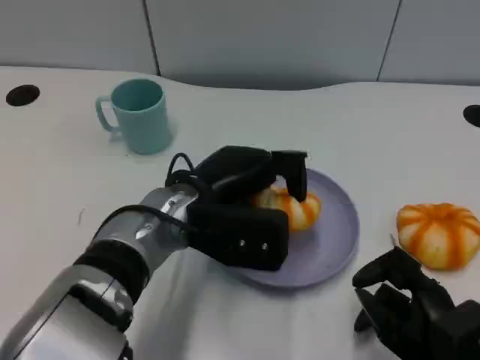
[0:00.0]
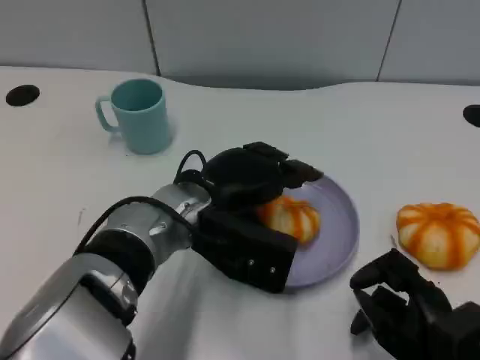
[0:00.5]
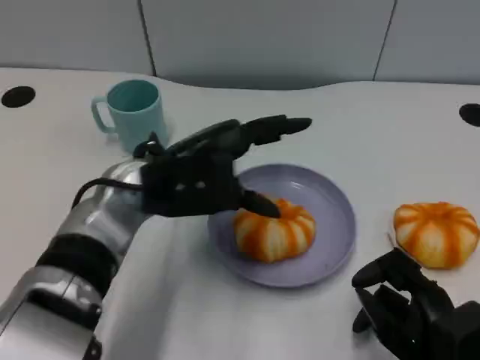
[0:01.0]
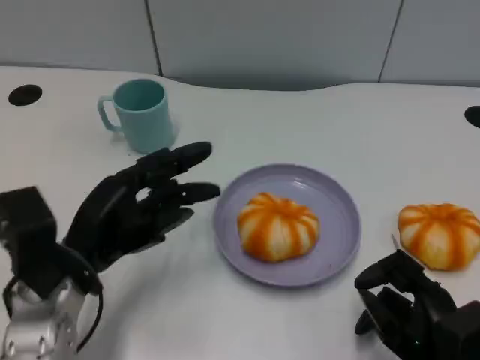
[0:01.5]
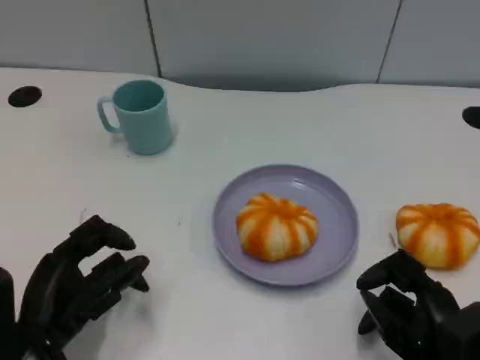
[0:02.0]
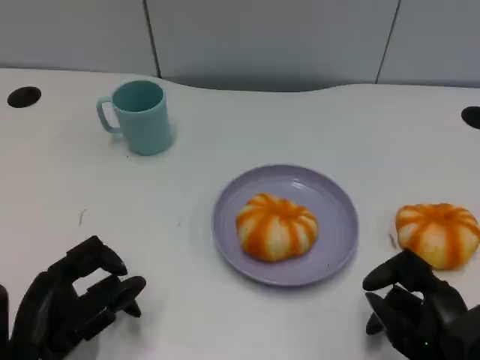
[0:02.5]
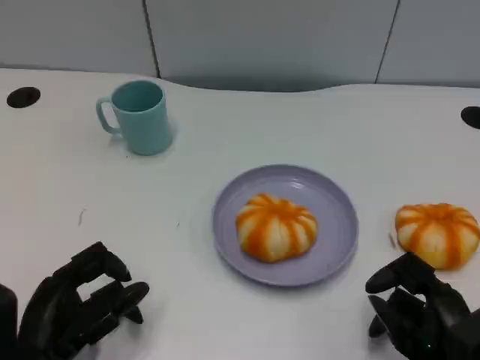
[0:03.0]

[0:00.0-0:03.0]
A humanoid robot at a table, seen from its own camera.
Task of the whole recording: Grasp the bread from the table and place it into the plate.
0:00.0 to 0:01.5: The left hand is displaced to the left and backward by some 15 cm.
0:01.5 to 0:03.0: The left hand heads backward, covering about 5 cm.

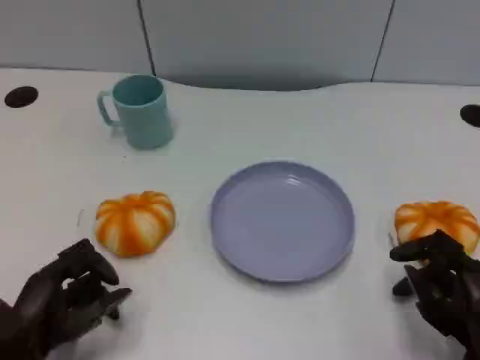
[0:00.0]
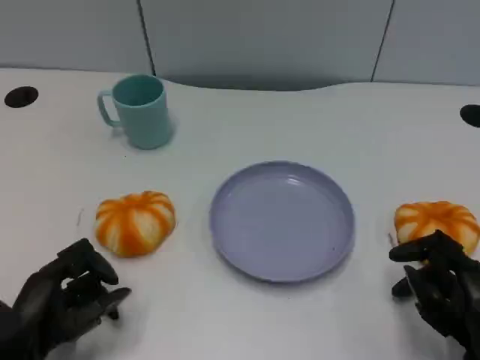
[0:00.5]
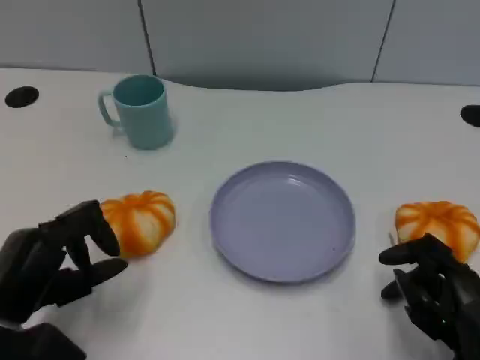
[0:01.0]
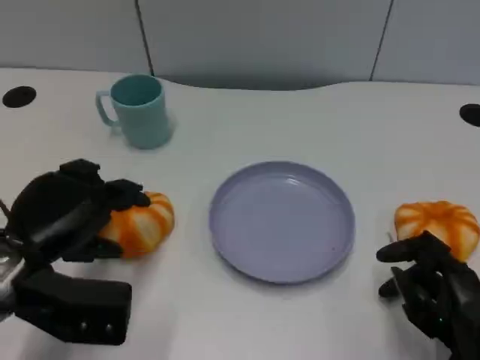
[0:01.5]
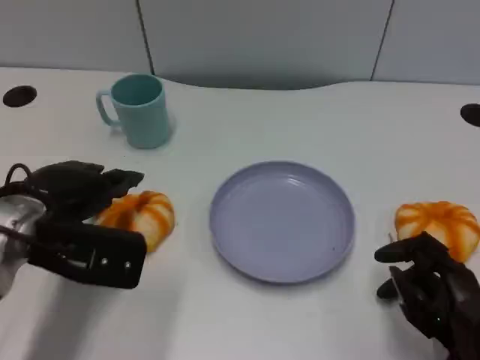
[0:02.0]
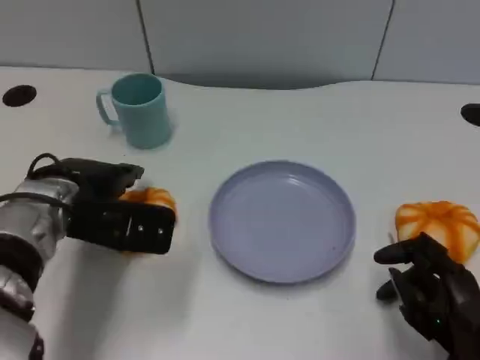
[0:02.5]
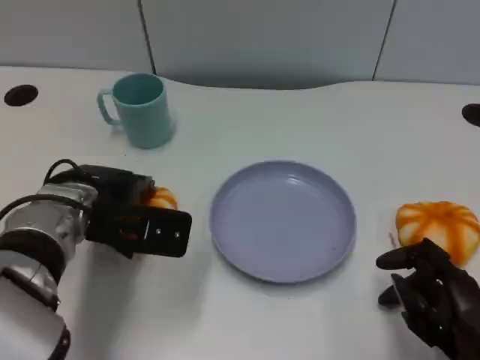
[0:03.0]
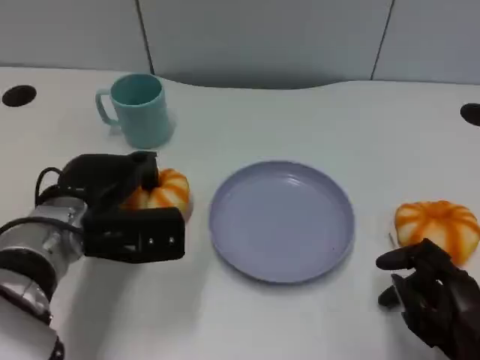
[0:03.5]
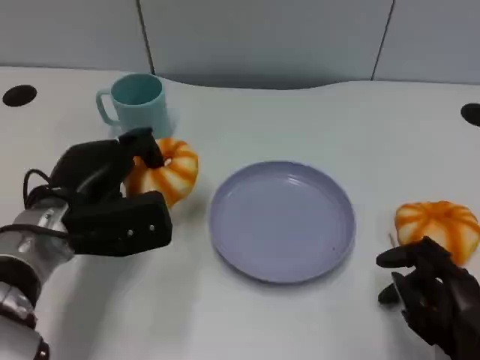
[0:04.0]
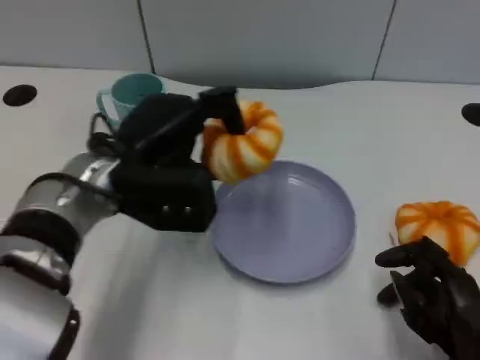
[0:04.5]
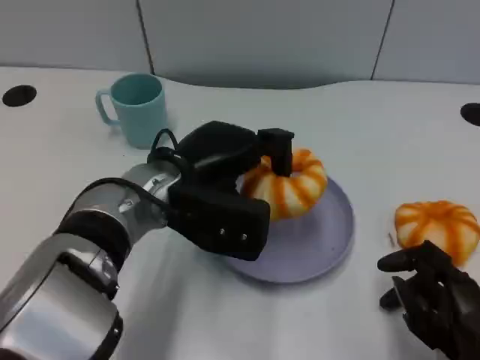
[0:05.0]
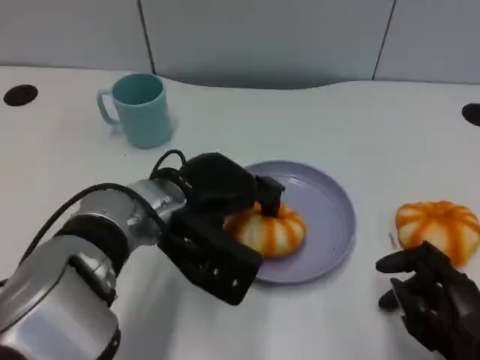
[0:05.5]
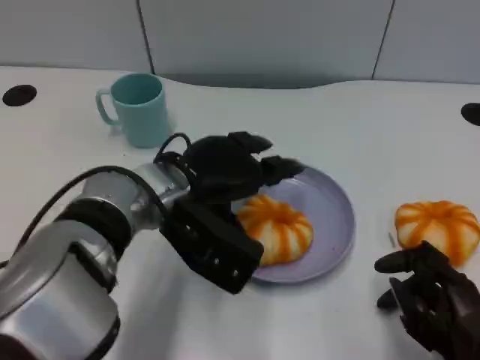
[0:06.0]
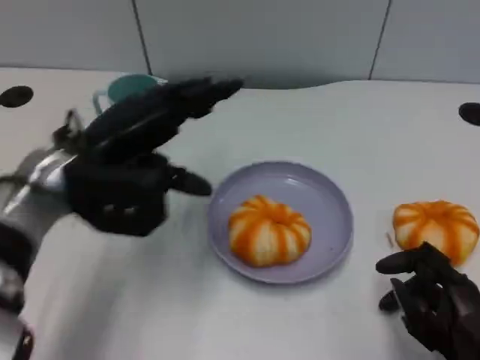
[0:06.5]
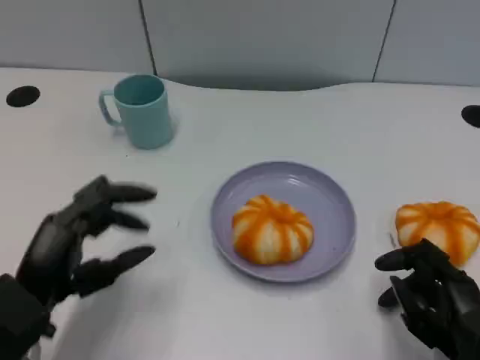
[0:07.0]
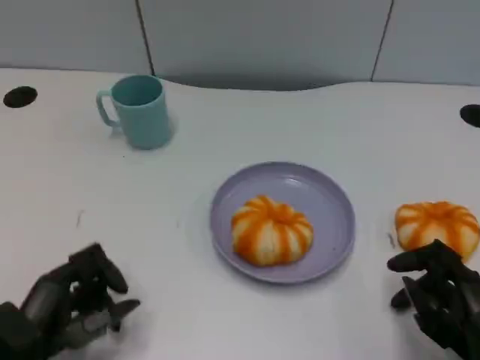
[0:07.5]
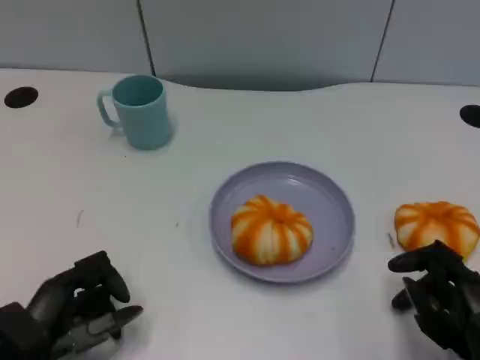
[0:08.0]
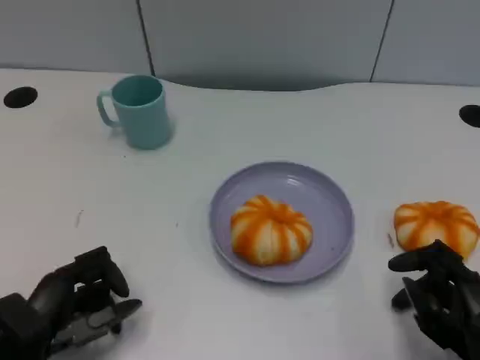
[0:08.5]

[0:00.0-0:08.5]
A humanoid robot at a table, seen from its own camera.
Task of the whole recording: Grasp the bread from the table and place it into the plate.
0:00.0 to 0:02.0: The left hand shifts approximately 15 cm upward and forward.
0:04.0 to 0:06.5: The left hand reaches some 10 cm to the right, then returns.
0:06.5 to 0:08.5: The left hand moves downward, backward and to the left, some 20 cm.

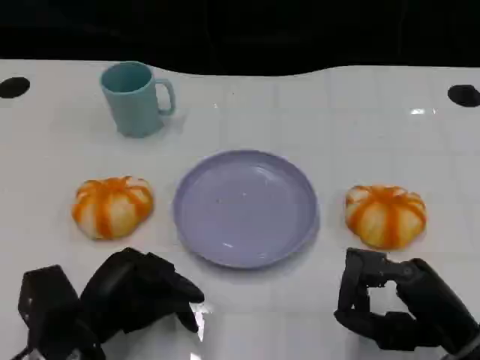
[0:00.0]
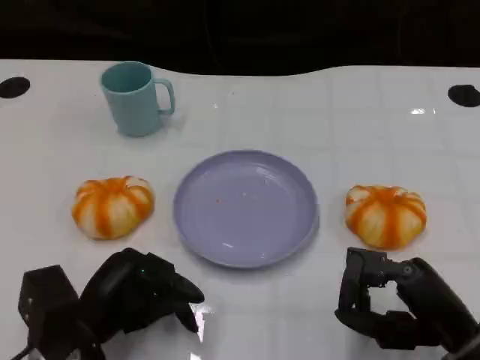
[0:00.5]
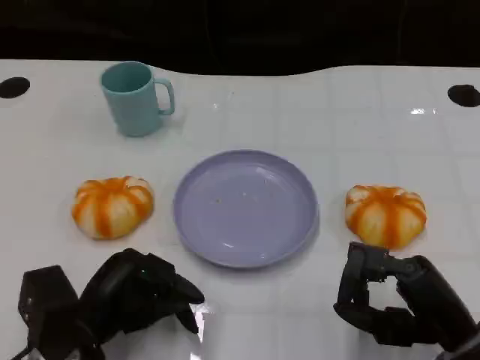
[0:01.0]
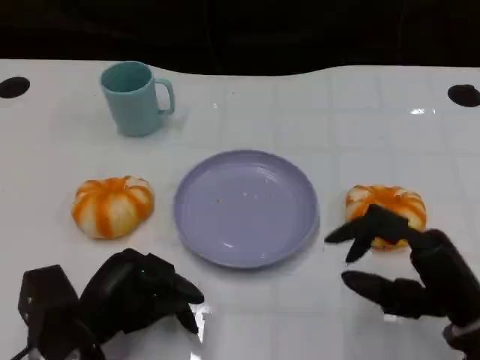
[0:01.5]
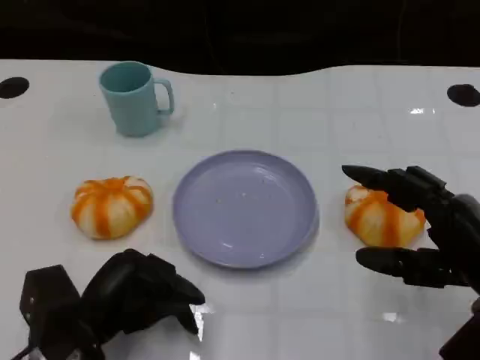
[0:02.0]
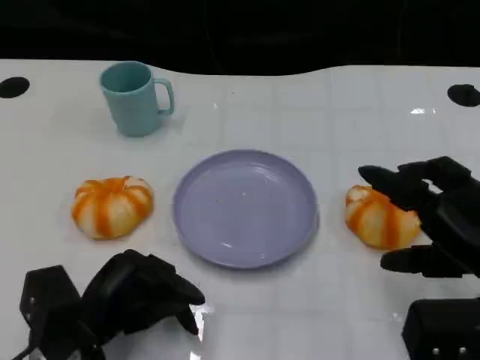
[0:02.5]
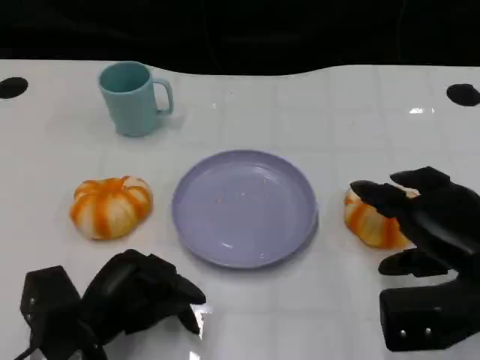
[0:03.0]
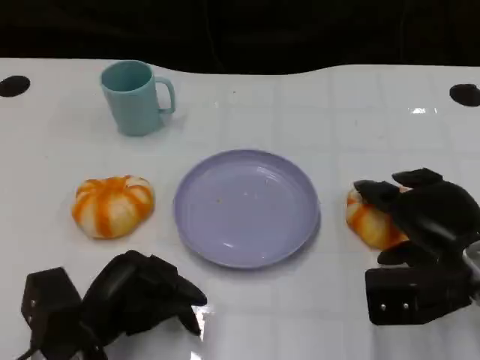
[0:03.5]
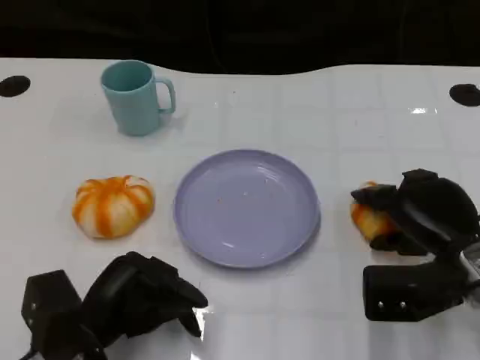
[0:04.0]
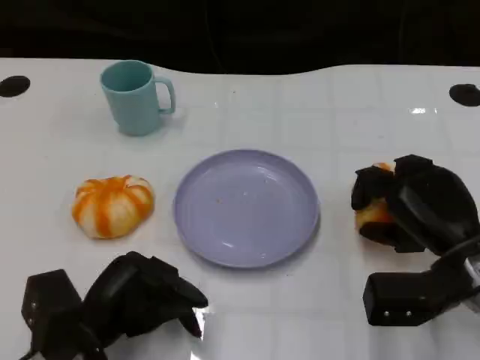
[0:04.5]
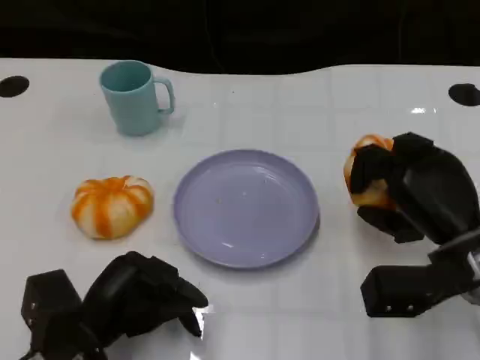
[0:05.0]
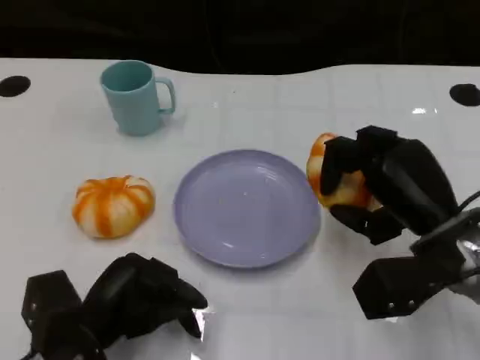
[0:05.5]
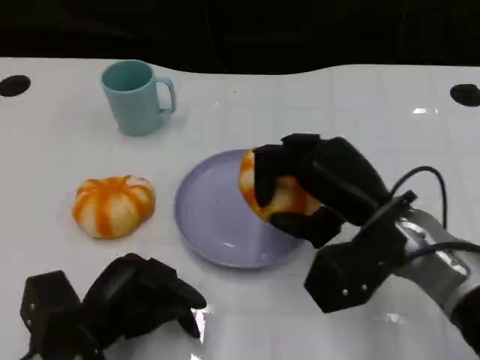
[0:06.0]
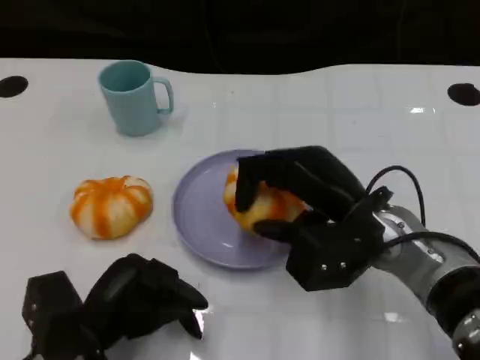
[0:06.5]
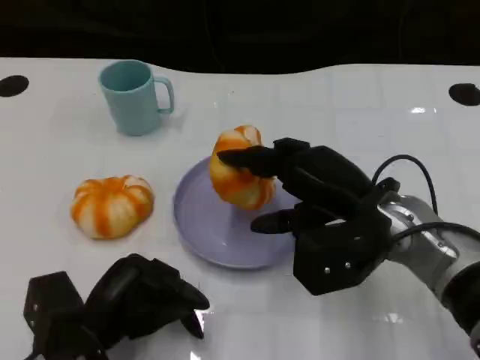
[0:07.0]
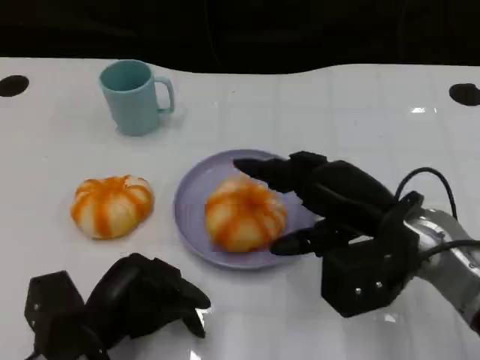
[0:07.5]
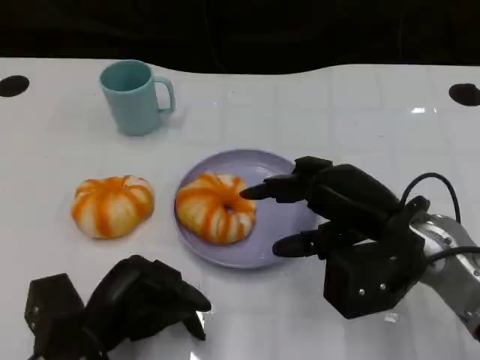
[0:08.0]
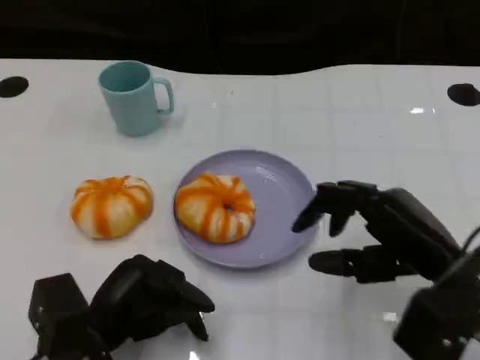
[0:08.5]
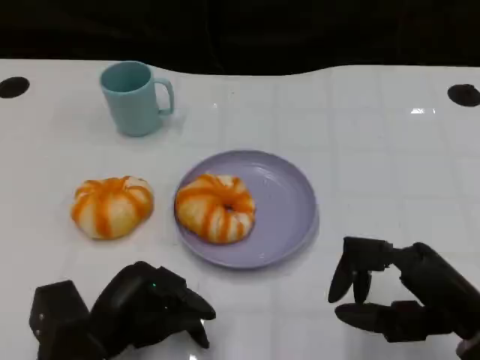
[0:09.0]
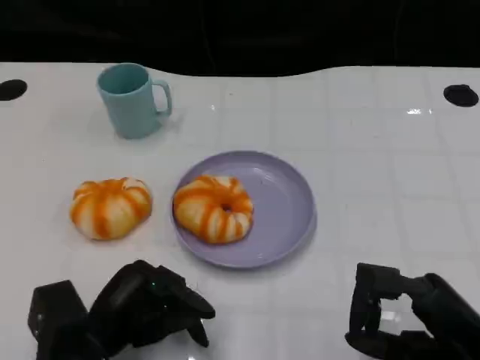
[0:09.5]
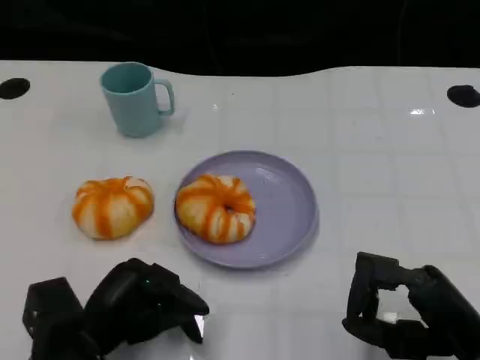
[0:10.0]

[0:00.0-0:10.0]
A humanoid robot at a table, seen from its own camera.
Task of the whole recording: Grasp the bread from the table and place it into the plate.
0:00.0 to 0:02.0: The right hand is displaced upward by some 5 cm.
0:02.0 to 0:04.0: The right hand travels forward by approximately 5 cm.
0:04.0 to 0:06.0: The right hand heads to the left, covering roughly 10 cm.
0:06.0 to 0:08.0: The hands move only a little.
0:08.0 to 0:10.0: The right hand is displaced backward, to the right and downward by about 15 cm.

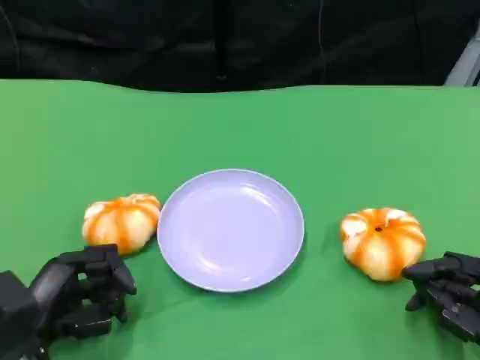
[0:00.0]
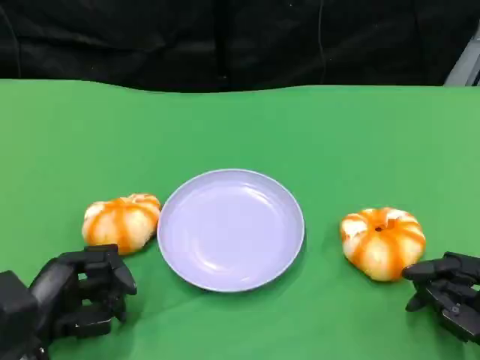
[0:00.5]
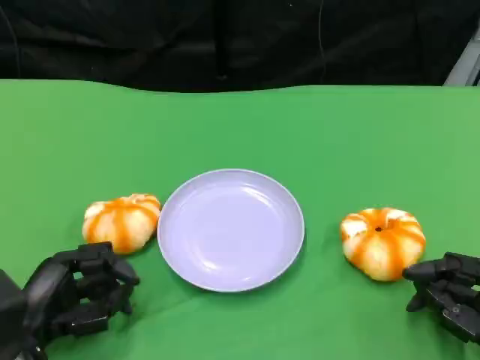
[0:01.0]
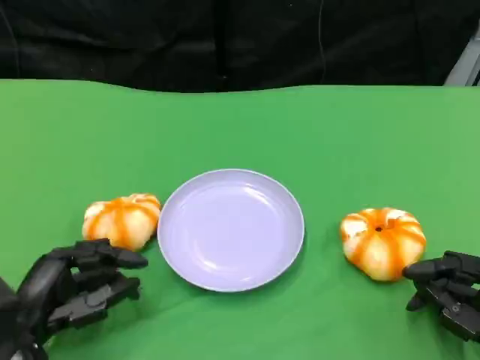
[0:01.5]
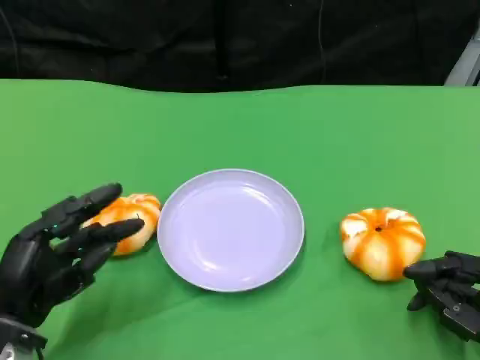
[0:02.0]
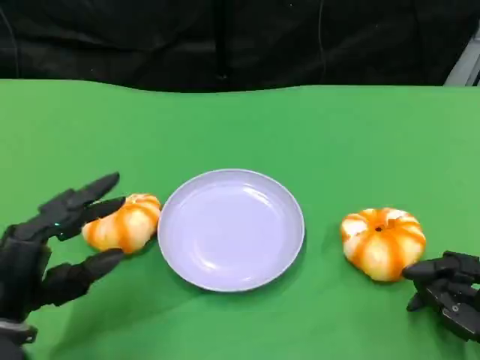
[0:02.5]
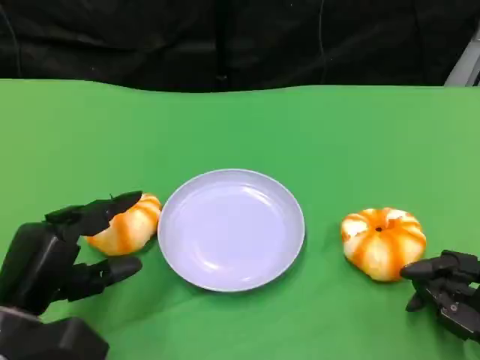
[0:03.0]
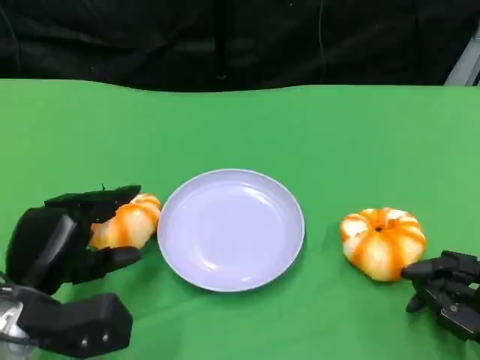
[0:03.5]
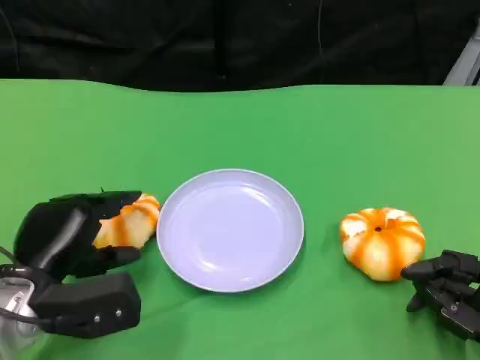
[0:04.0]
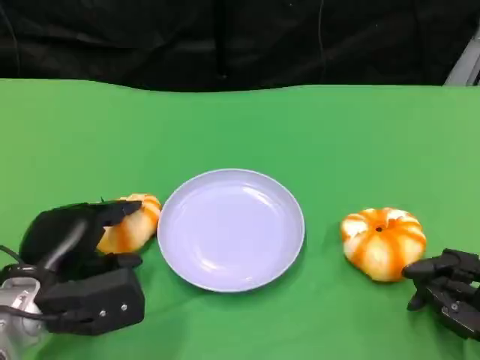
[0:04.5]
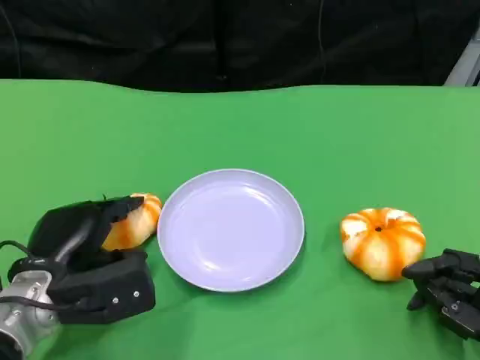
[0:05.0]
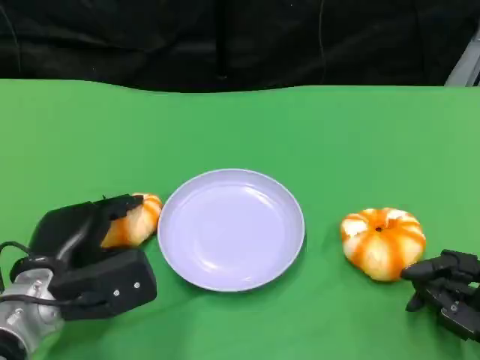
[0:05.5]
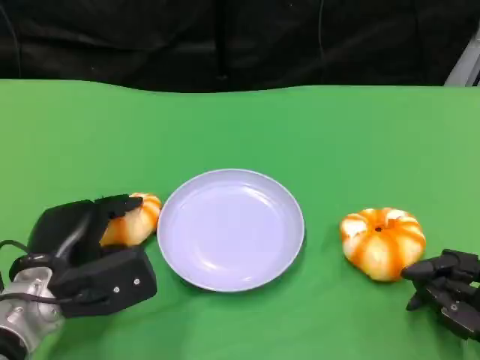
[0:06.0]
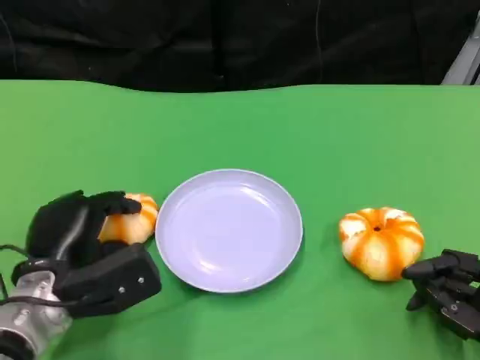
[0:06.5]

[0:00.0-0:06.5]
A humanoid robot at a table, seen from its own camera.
Task of the whole recording: Grasp the bread from the table and place it into the plate.
0:02.0 to 0:04.5: The left hand shifts by roughly 5 cm.
0:04.5 to 0:06.5: The hands move only a little.
